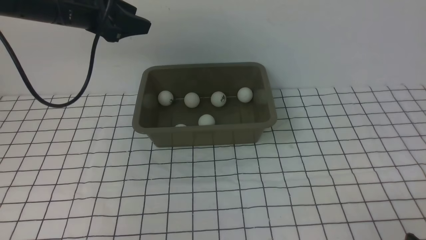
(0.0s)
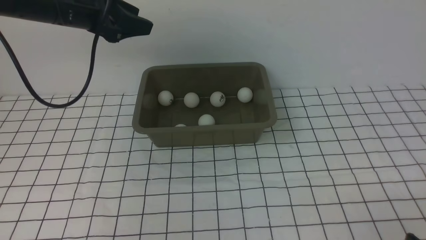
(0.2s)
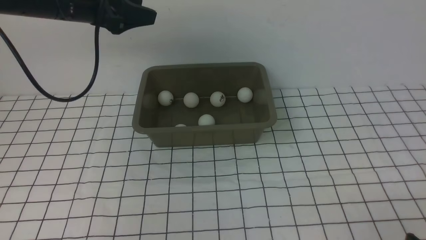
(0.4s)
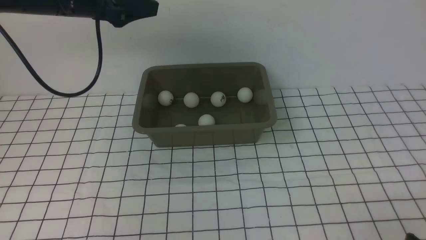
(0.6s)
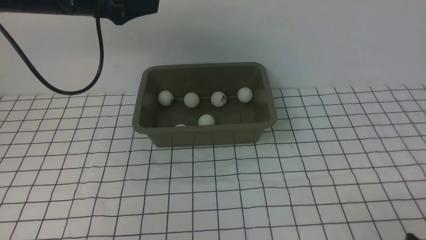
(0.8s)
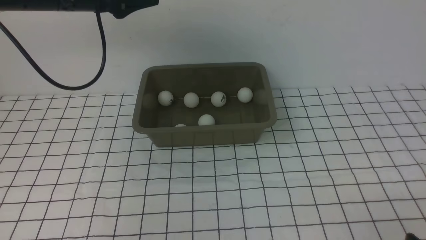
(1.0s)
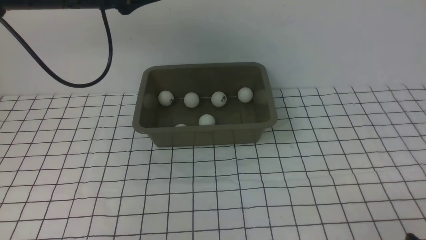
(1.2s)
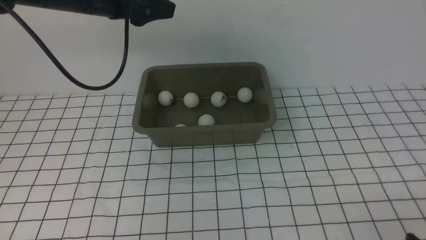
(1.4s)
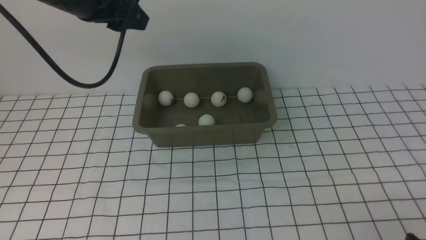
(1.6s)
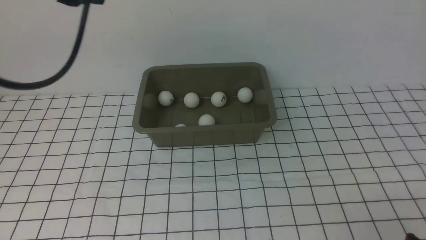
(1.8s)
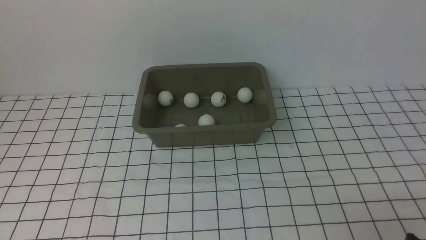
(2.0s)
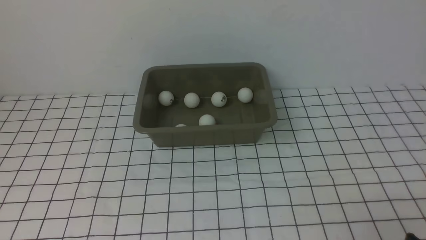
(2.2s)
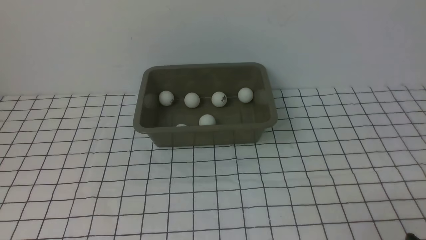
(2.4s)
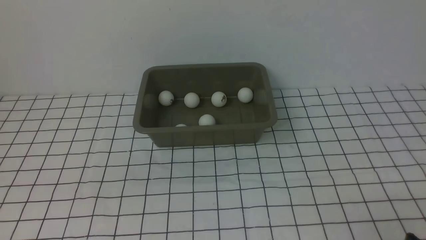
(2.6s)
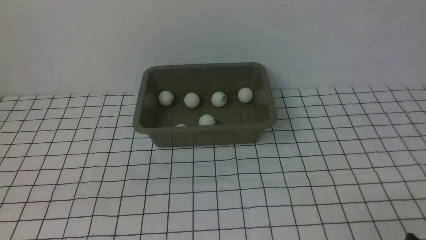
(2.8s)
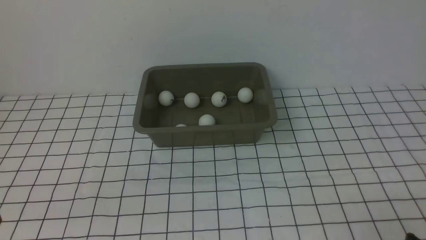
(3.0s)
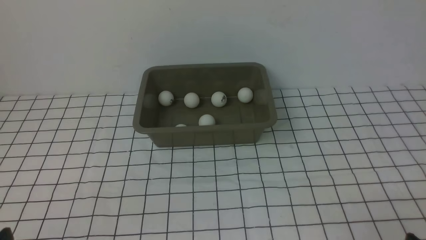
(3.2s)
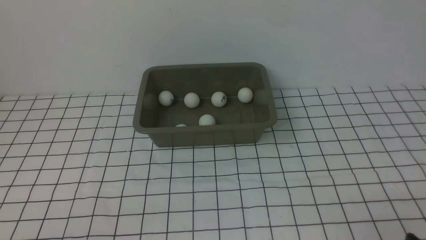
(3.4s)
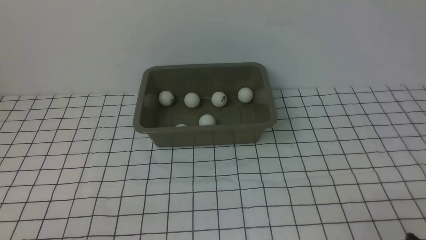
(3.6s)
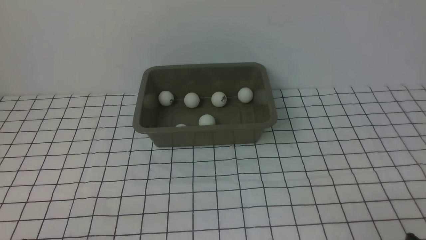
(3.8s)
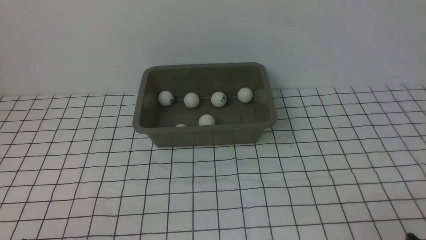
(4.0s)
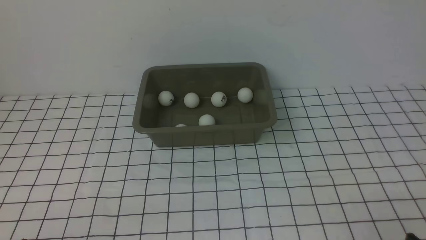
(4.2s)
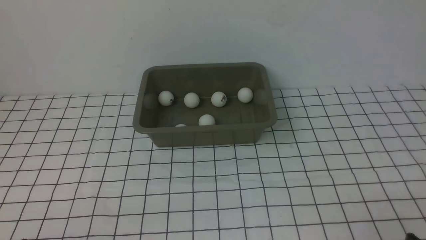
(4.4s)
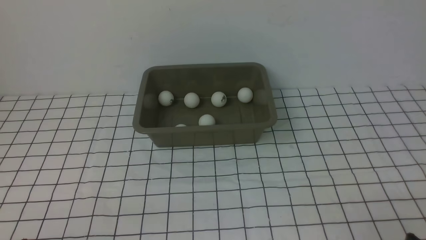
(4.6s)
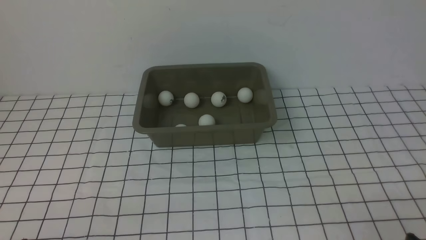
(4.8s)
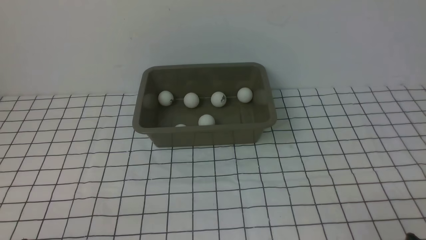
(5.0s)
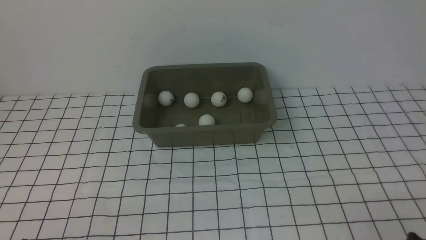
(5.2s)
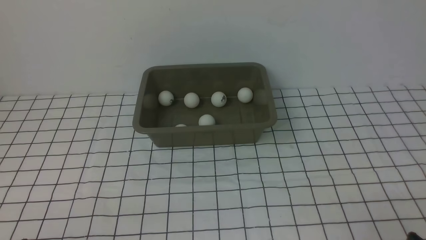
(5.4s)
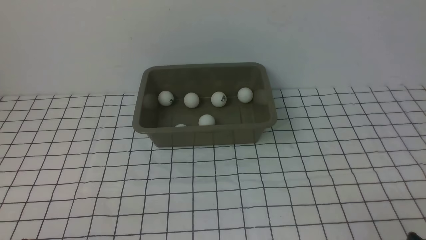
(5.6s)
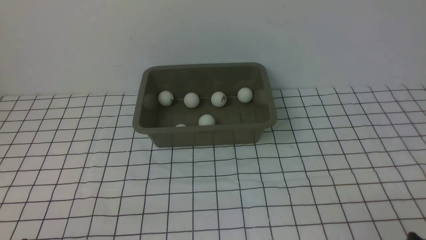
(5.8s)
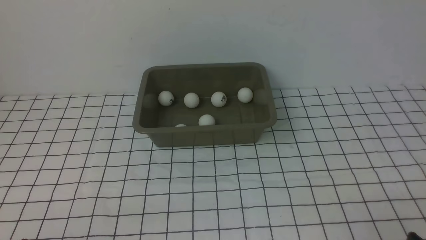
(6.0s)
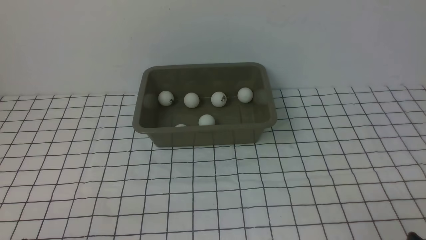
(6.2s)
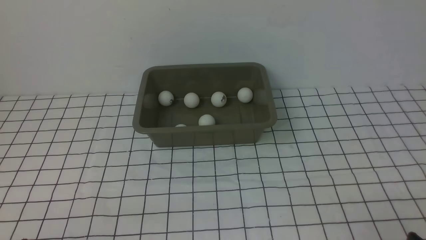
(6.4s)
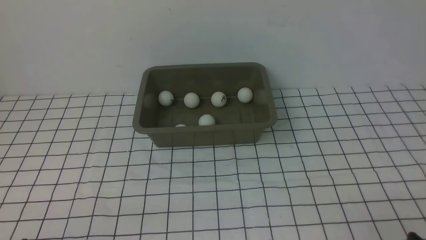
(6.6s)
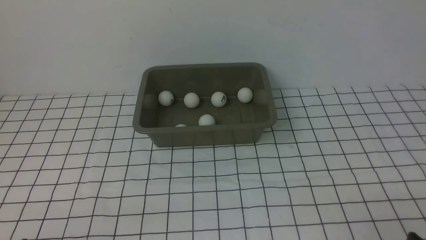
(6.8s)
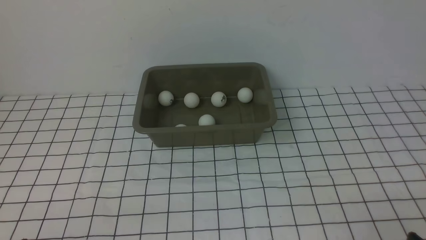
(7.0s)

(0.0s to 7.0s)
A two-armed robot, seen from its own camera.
0.0s - 1.4s: The left gripper moves roughly 5 cm.
1.4s - 2.8s: The left gripper heads backward, covering roughly 35 cm.
4.2s - 7.0s: Neither gripper changes place.
